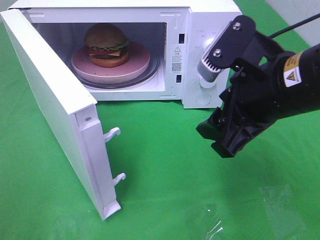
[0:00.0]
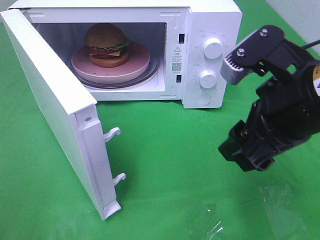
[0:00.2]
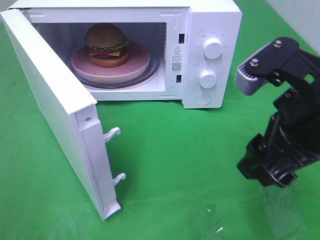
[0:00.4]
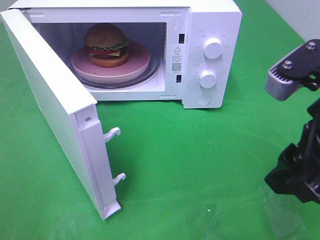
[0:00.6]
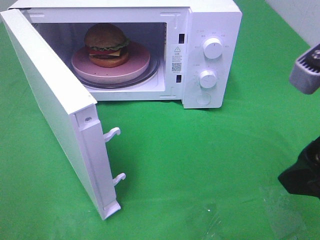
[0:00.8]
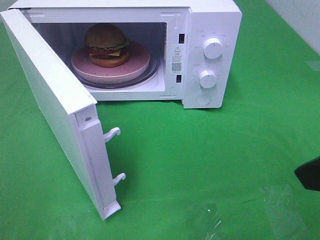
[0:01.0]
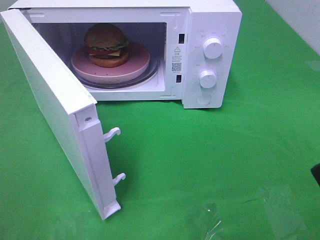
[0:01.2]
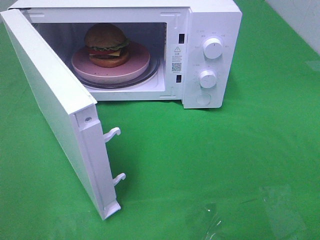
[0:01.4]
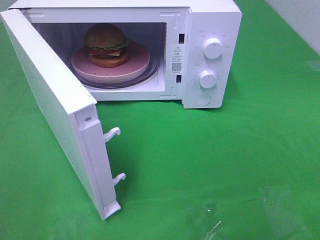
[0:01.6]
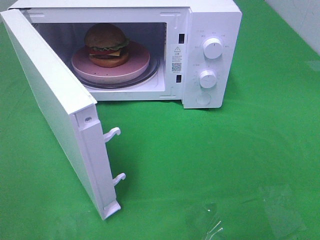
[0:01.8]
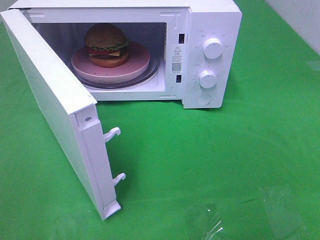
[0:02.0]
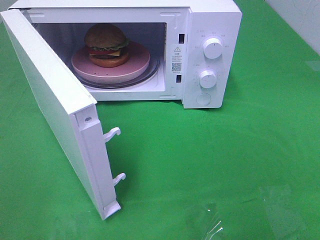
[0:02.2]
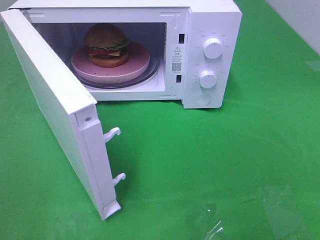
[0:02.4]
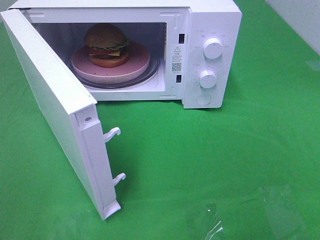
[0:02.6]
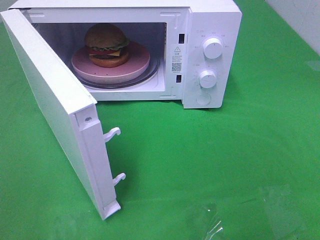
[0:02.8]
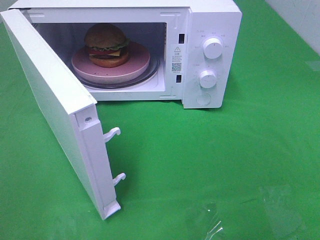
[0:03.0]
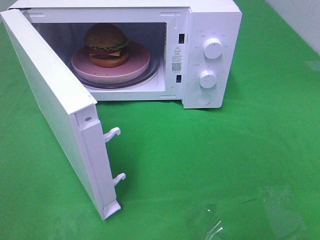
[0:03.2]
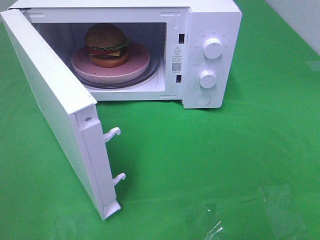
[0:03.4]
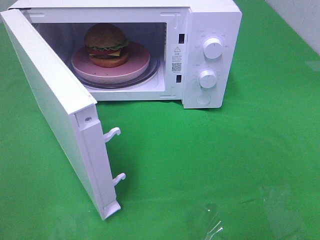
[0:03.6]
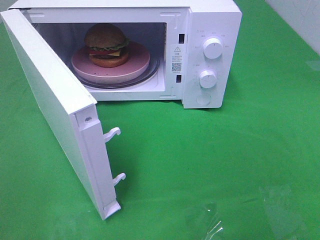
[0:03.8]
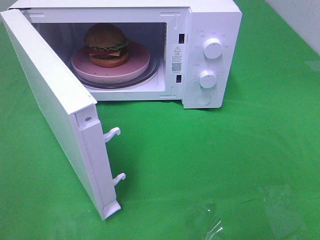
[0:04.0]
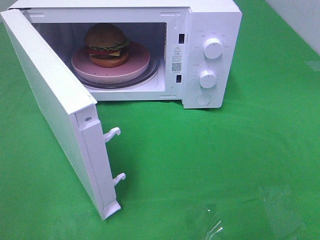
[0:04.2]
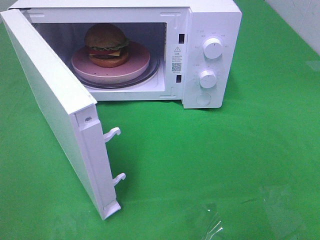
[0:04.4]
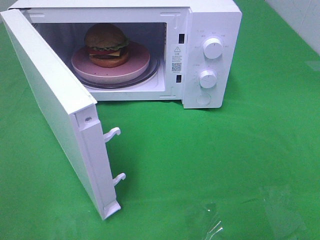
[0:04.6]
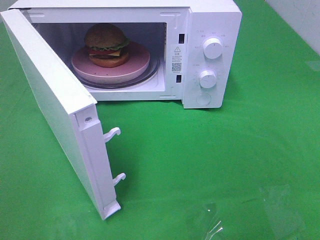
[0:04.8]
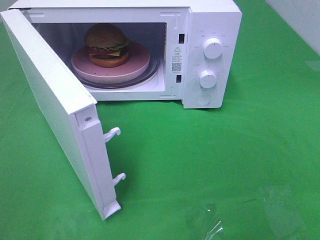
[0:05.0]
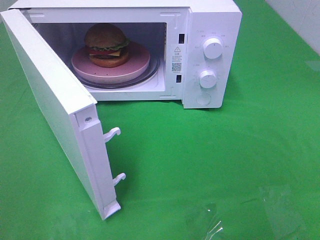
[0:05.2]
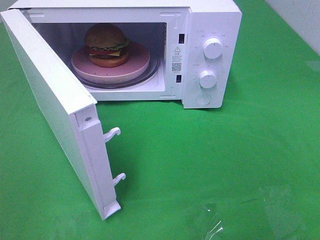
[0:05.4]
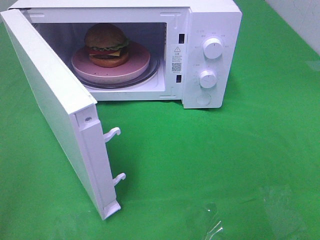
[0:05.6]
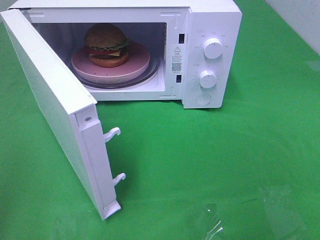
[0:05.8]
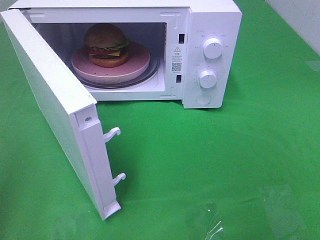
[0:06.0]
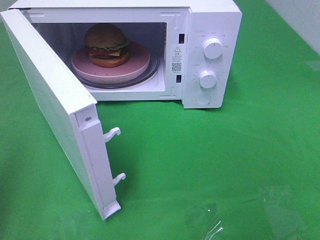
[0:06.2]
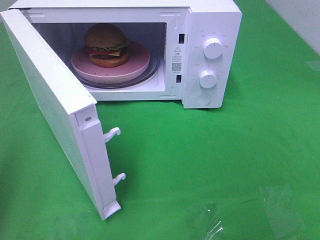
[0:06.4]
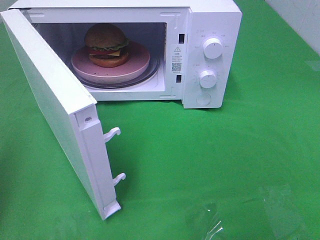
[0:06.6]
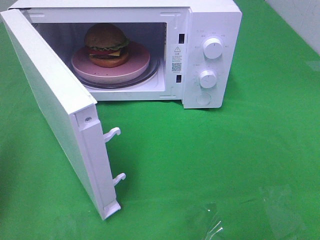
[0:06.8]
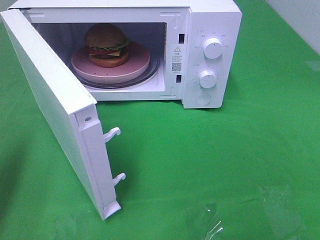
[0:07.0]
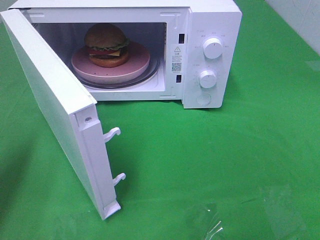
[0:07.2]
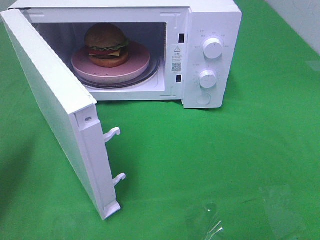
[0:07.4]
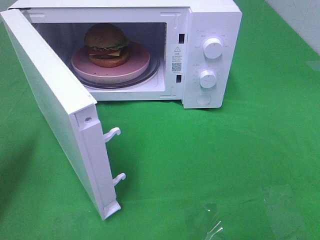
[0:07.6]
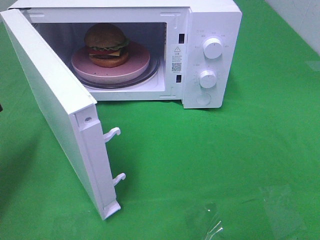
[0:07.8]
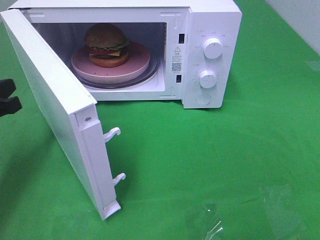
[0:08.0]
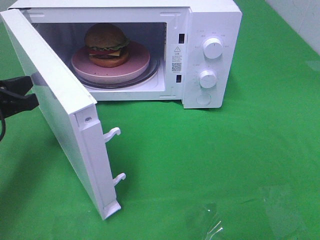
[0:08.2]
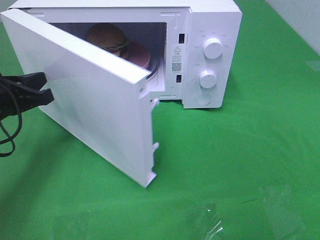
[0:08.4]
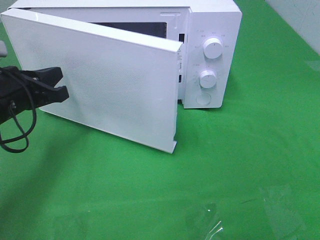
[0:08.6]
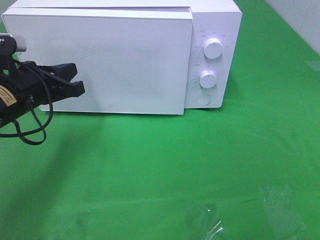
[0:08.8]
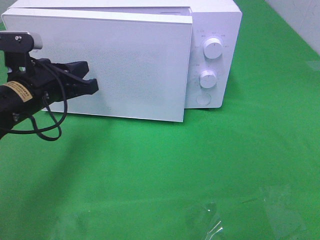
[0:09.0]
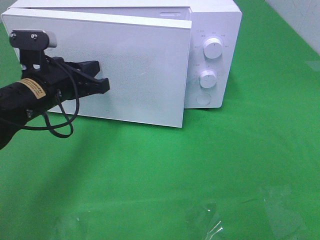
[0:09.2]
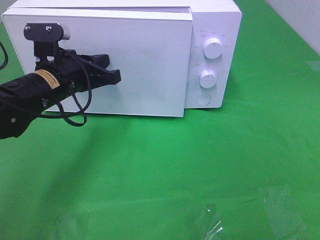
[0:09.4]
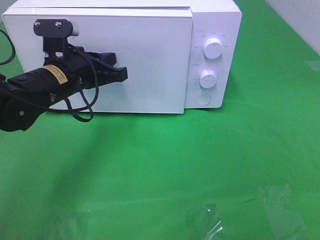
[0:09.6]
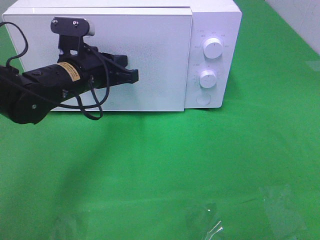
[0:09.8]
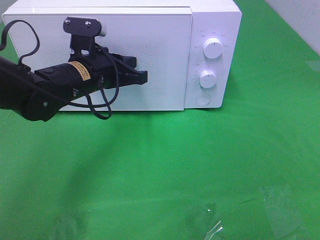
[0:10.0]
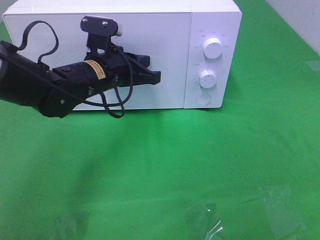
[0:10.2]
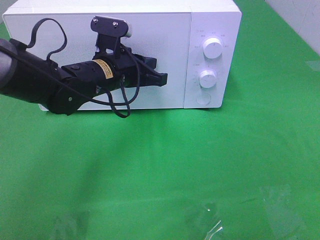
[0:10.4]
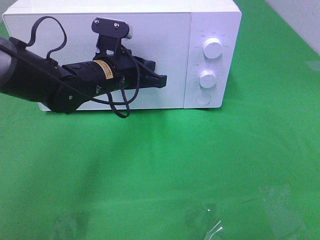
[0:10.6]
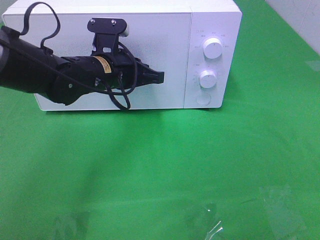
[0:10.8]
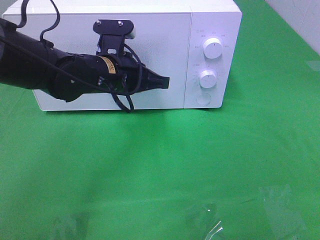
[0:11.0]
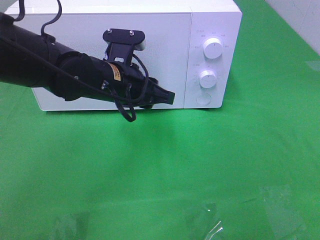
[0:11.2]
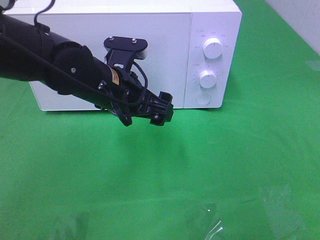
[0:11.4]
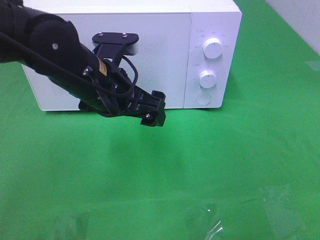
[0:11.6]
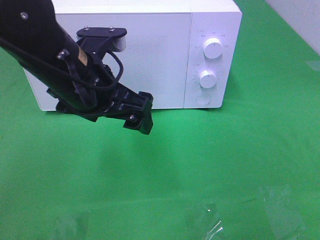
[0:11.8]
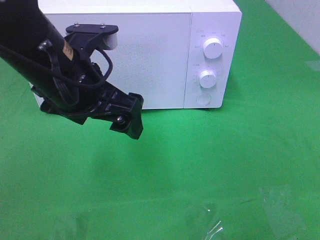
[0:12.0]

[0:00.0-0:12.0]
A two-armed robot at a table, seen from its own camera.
Task of the whole recording: Heat the burger.
Step, 0:00.0 to 0:11.2: Left hand: close the microwave door.
0:00.0 to 0:01.6: The right gripper moves backward and to the right, some 20 cm.
0:03.0 to 0:04.4: Both grippers stay put.
0:06.0 to 0:07.6: The left gripper is displaced forward and downward by about 20 cm.
0:07.6 to 0:09.0: The left gripper shifts roughly 15 cm to the right and forward.
0:09.0 to 0:10.4: The left gripper heads to the right and forward, covering about 10 cm.
0:10.4 to 0:12.0: The left gripper travels backward and upward by some 15 cm, and opens its fingers.

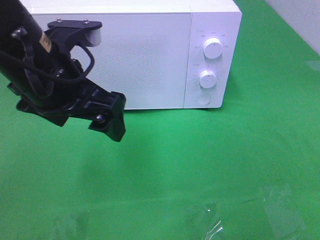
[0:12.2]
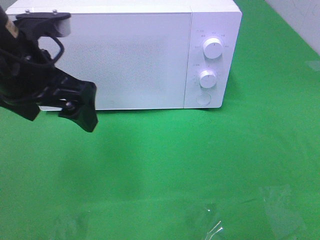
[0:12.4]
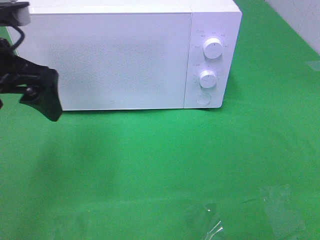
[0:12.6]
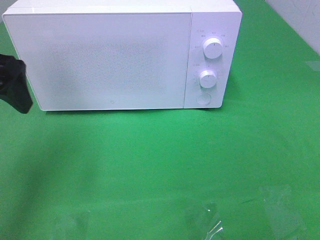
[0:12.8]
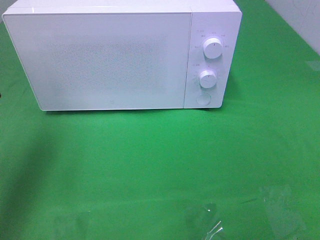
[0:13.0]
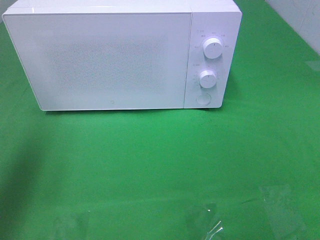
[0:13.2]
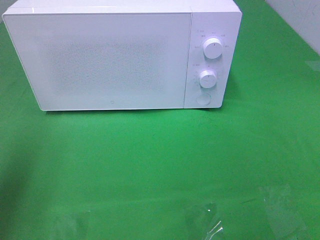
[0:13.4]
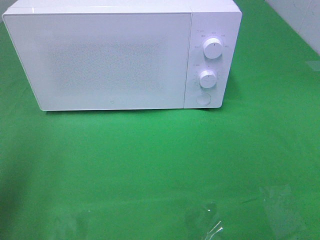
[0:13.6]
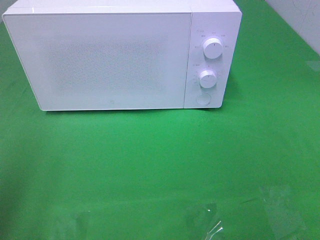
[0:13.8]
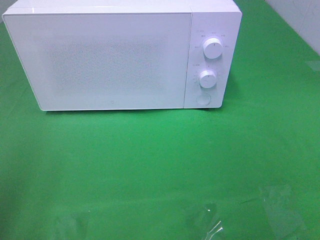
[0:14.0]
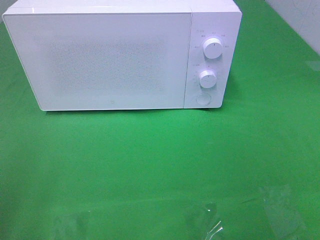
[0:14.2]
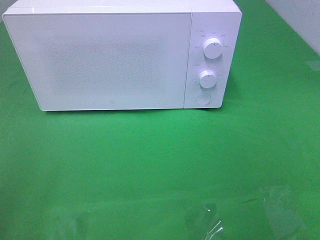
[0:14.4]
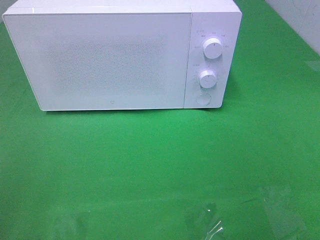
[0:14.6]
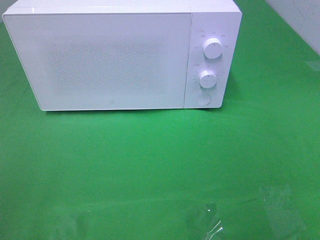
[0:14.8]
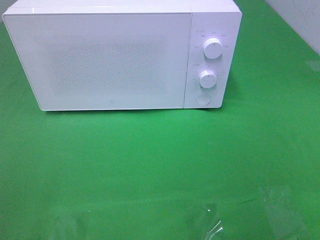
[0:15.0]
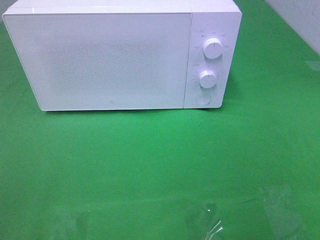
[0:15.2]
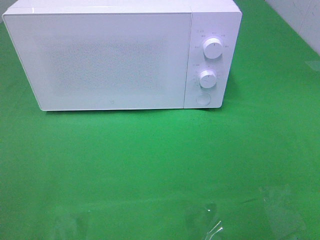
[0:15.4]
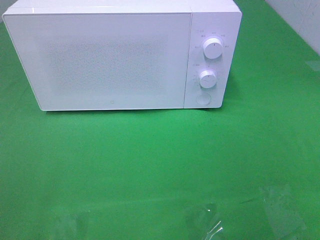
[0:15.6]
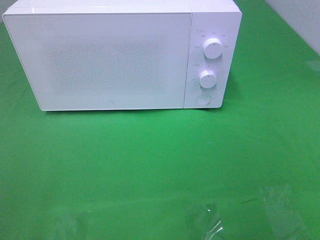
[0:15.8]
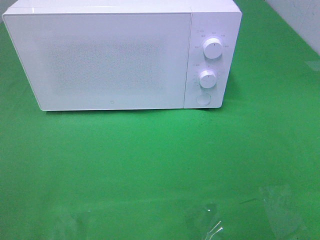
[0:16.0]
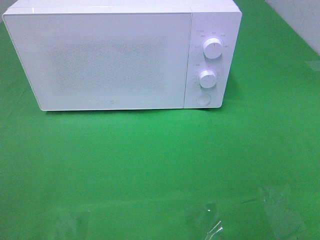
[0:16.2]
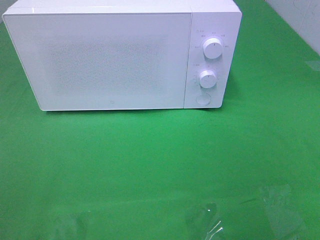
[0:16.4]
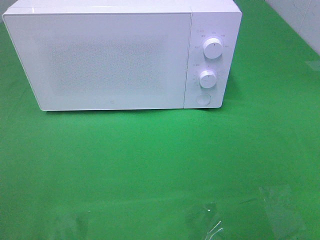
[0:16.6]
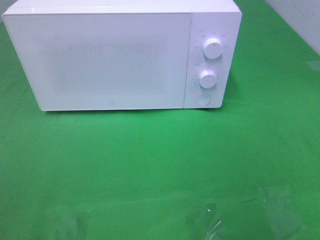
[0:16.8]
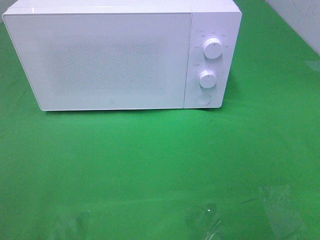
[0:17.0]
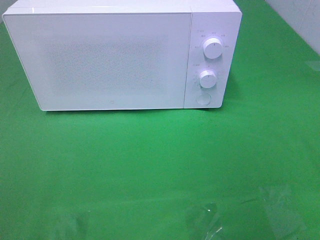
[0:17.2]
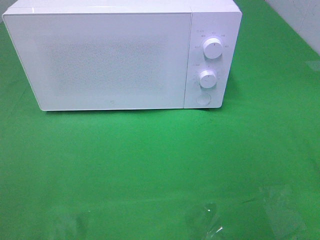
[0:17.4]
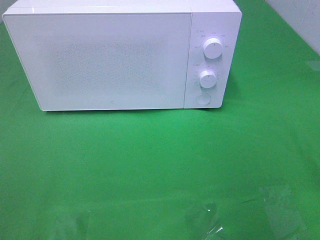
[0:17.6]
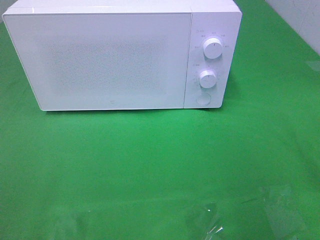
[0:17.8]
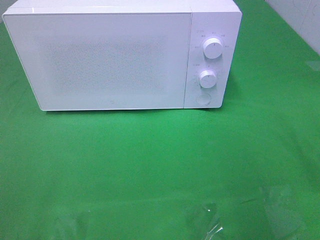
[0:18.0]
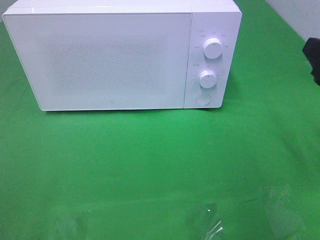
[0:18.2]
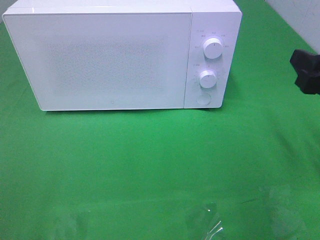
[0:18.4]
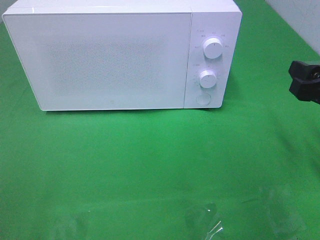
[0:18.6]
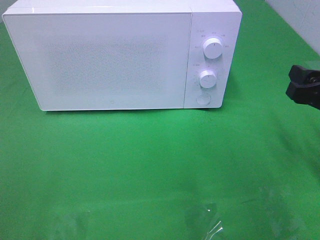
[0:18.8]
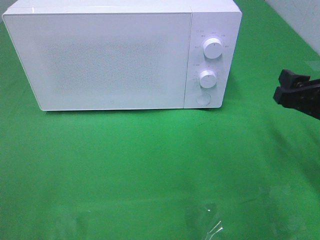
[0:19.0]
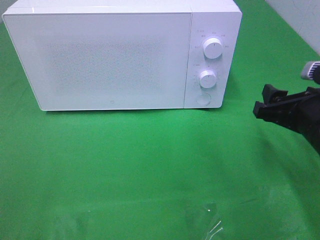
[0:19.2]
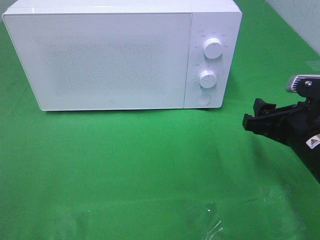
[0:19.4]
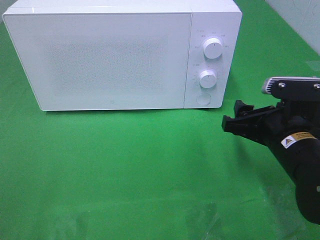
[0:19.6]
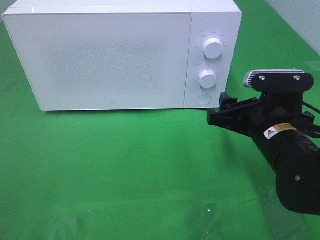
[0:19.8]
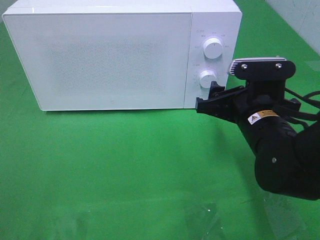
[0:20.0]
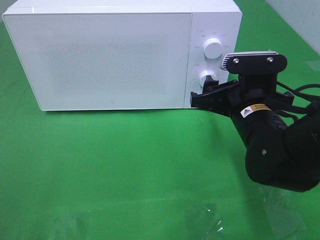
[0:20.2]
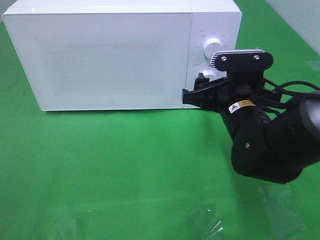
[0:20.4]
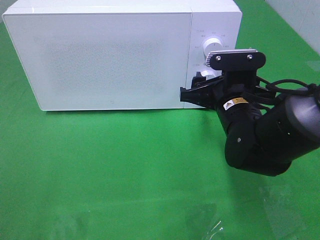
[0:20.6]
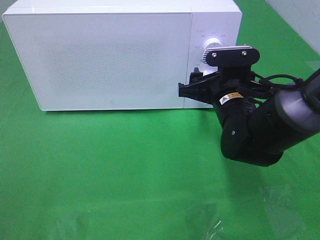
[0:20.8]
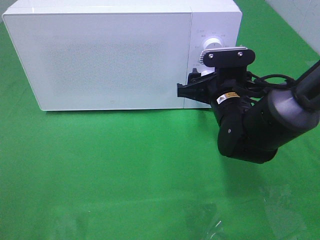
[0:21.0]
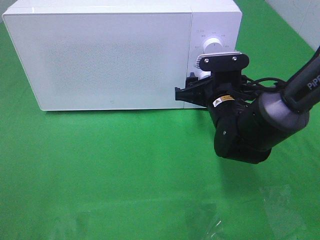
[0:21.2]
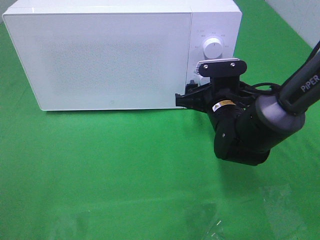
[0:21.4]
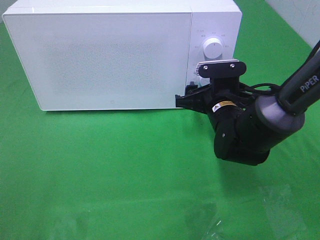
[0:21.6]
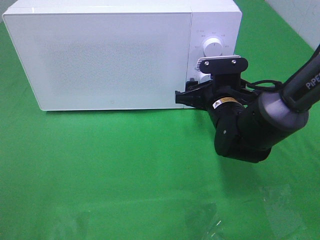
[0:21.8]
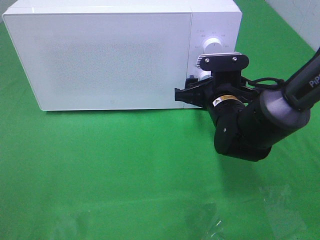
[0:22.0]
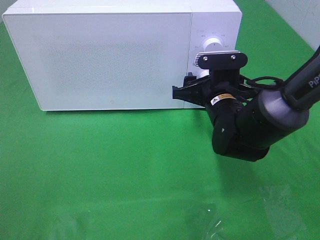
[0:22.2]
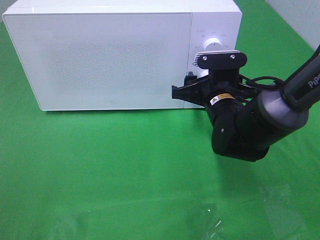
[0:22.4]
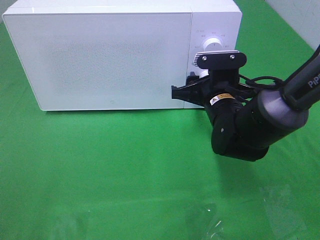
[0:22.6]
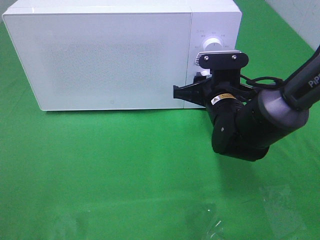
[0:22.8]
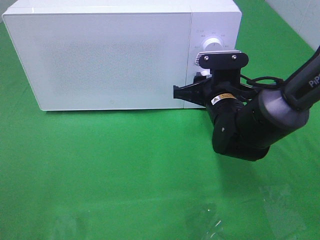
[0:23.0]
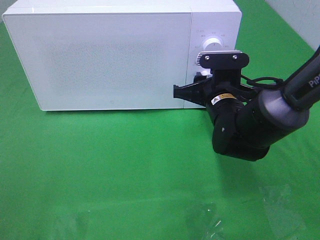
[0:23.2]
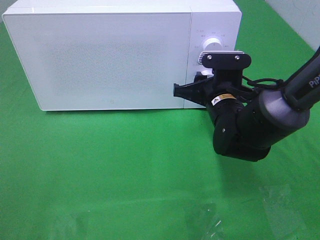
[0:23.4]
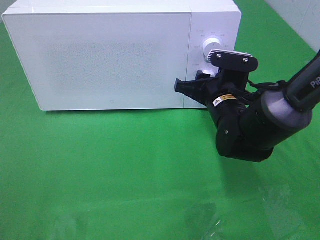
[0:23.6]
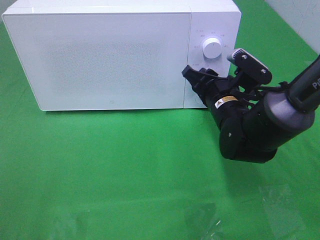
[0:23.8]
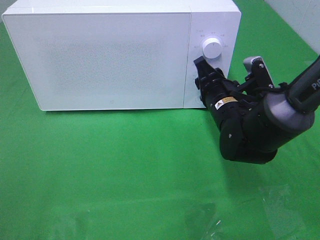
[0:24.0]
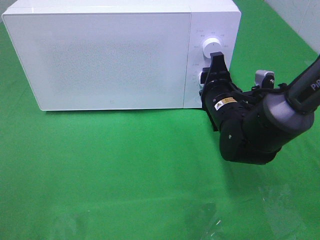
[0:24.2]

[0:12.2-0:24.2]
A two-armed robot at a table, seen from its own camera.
Task of the whole recording: Heat the burger.
0:12.2 to 0:13.8: The left gripper travels to the left and backward by approximately 20 cm.
0:16.6 to 0:18.2: The right gripper goes approximately 15 cm forward and downward.
0:18.2 to 0:19.8: The right gripper is displaced to the left and downward by approximately 15 cm.
0:19.8 to 0:21.2: The right gripper shifts approximately 10 cm forward.
0:21.2 to 0:22.6: Neither gripper changes place.
